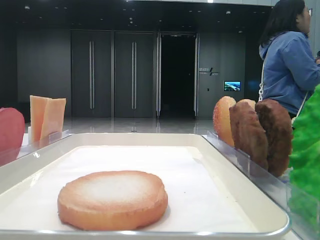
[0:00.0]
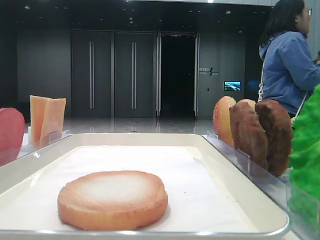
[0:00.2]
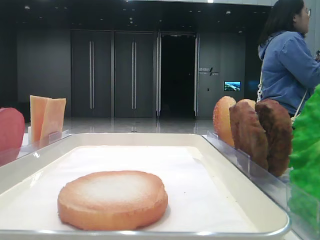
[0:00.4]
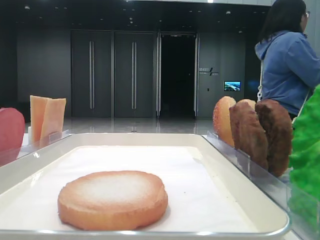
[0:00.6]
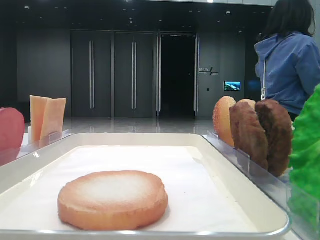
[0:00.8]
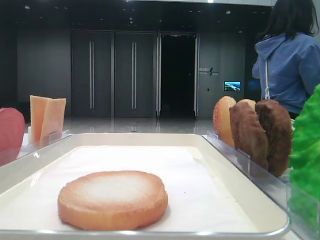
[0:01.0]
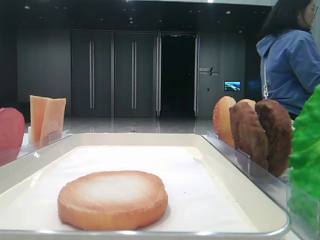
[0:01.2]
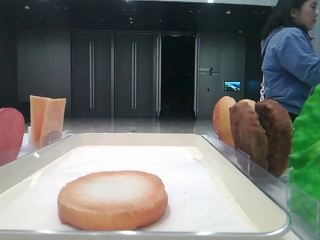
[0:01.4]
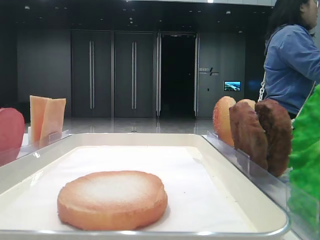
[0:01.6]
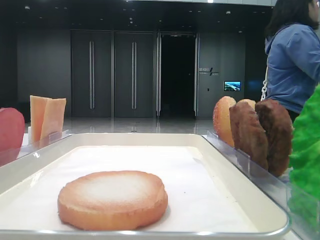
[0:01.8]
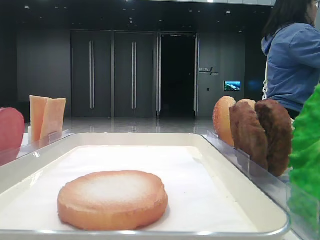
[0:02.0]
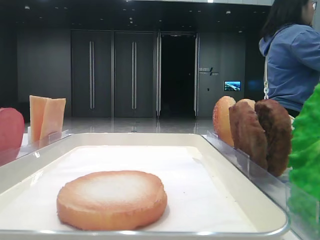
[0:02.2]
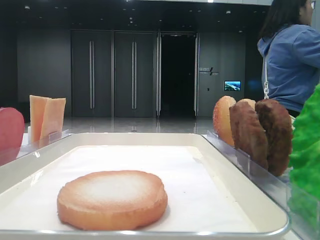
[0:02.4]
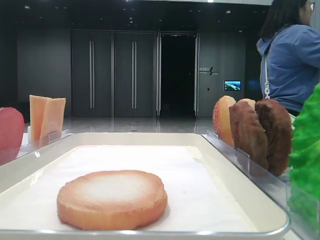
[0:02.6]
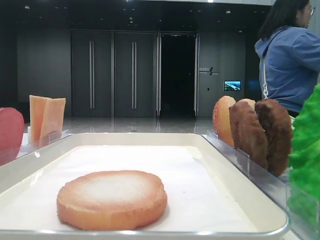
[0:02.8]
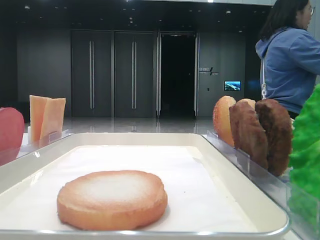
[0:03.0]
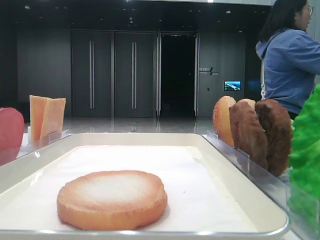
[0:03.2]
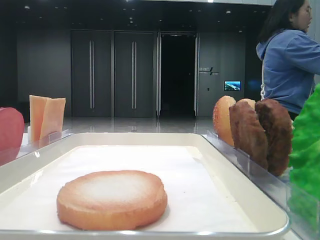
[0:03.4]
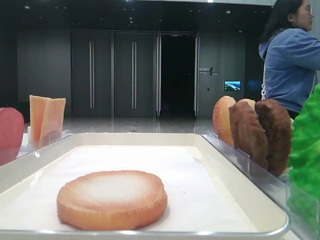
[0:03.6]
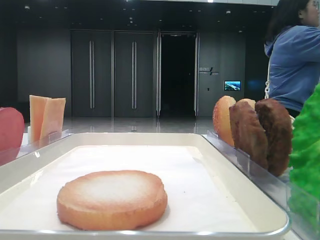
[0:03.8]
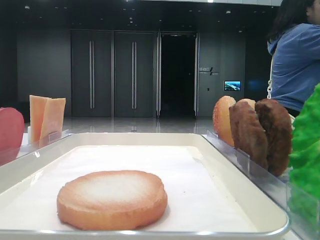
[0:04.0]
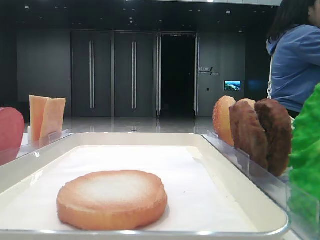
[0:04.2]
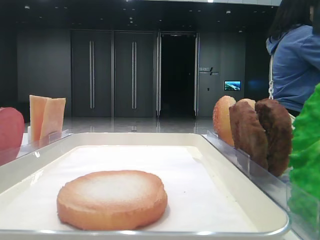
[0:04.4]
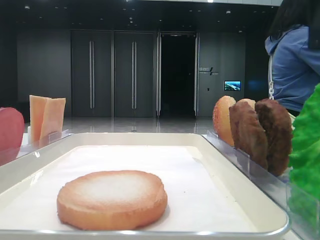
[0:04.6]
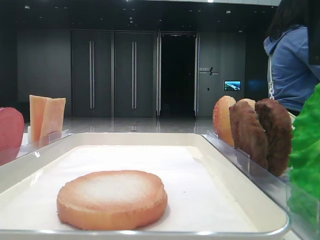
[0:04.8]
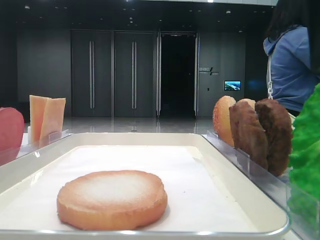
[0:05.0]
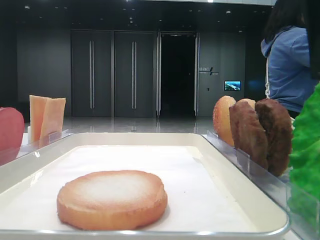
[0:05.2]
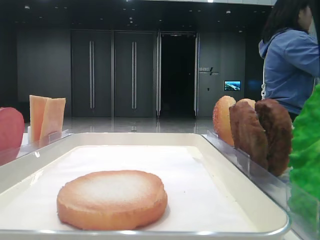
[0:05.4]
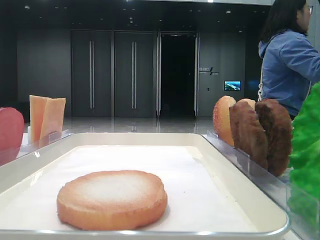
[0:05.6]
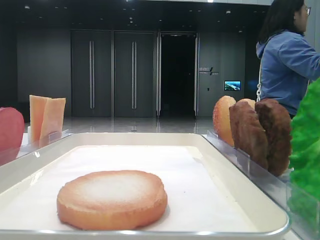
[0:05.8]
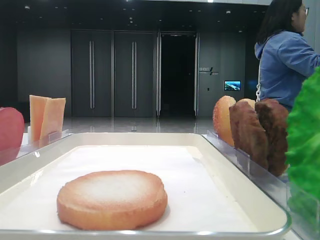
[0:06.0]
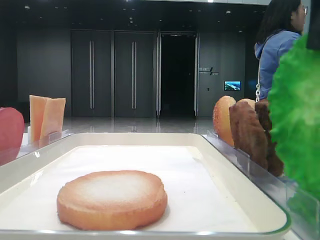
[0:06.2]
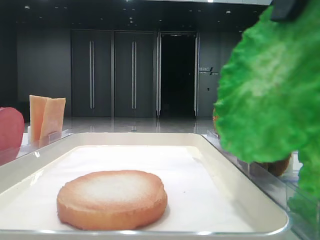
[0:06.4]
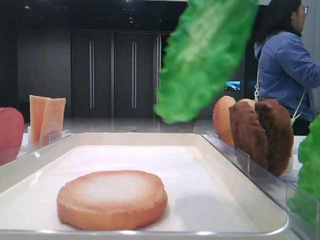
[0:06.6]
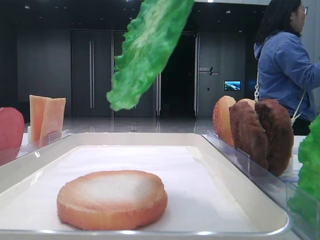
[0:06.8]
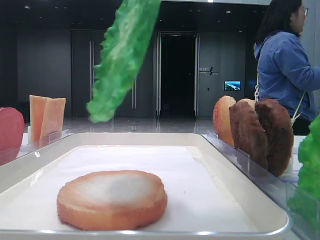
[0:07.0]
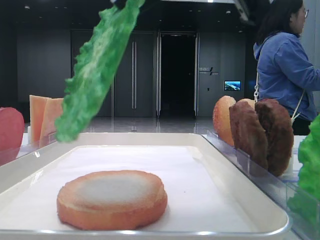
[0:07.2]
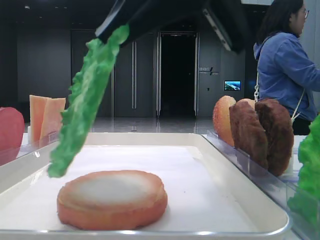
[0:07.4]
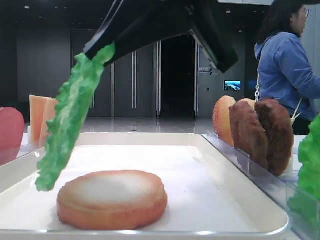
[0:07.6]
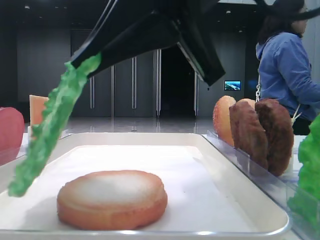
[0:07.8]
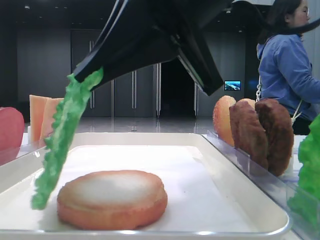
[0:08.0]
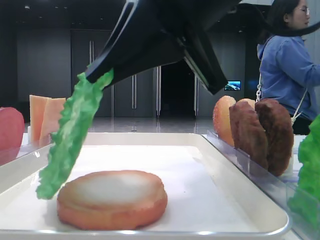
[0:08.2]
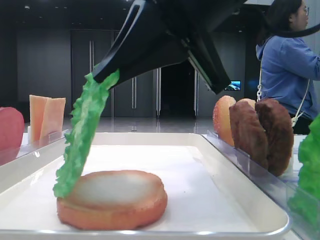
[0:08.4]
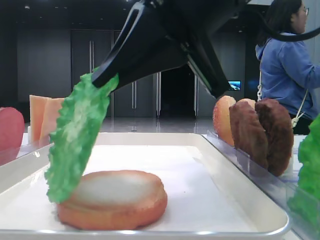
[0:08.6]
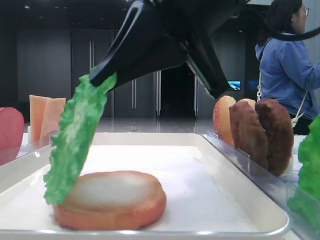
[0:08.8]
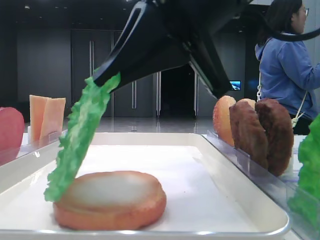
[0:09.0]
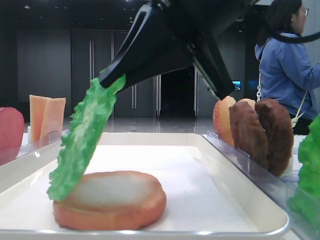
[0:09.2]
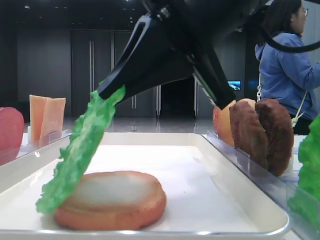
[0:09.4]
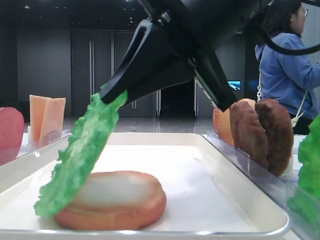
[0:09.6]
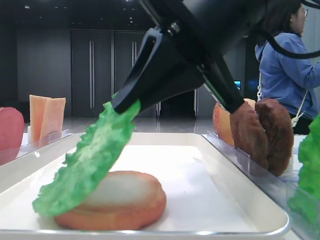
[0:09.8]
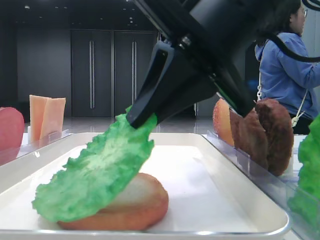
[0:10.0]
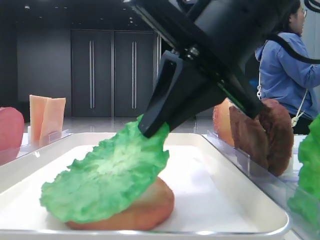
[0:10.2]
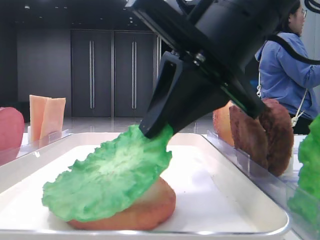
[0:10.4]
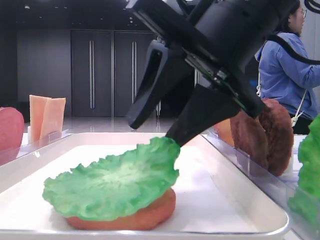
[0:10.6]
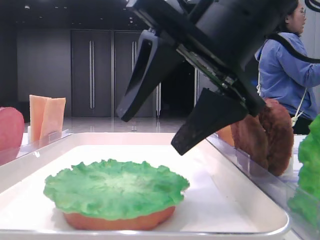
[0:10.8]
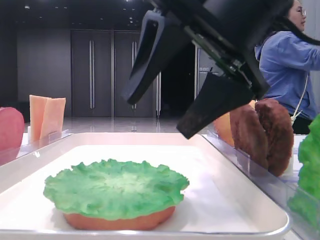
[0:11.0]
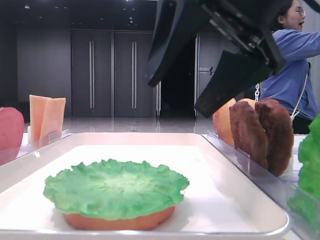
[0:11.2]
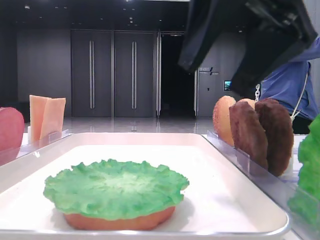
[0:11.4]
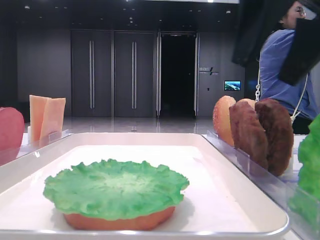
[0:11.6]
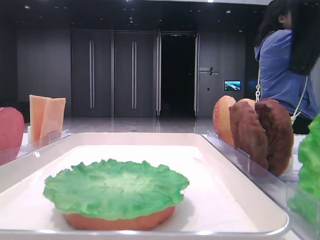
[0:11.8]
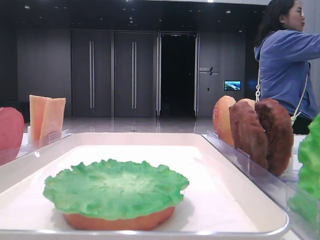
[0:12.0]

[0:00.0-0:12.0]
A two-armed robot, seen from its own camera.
Step, 0.0 to 5.8 s: Grab the lettuce leaf with the right hand.
Step, 6.0 to 10.6 s: Place the lettuce leaf on the bottom bread with the right hand.
1.6 to 3.0 s: The right gripper goes approximately 15 cm forward.
3.0 to 4.4 s: The right gripper is displaced to the left by about 10 cm.
4.4 to 6.0 s: The right gripper closes its fingers.
6.0 to 7.6 s: The right gripper goes some 10 cm to the left.
7.6 to 9.0 s: The grippers move only a little.
10.4 to 12.0 s: The right gripper goes about 15 cm to the right, and opens.

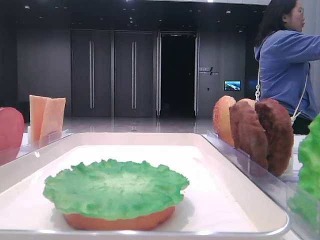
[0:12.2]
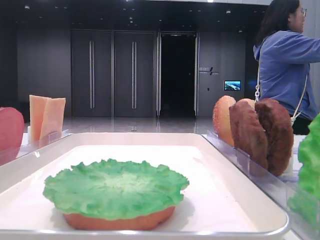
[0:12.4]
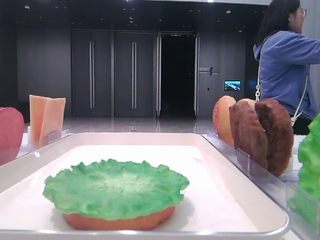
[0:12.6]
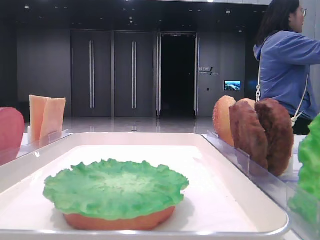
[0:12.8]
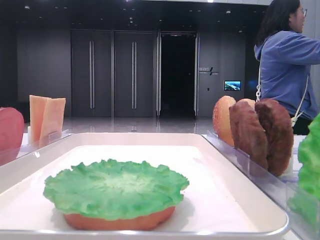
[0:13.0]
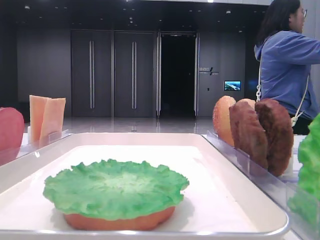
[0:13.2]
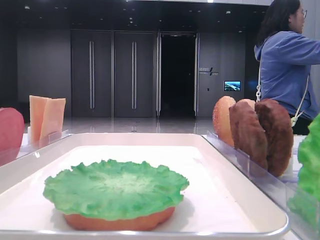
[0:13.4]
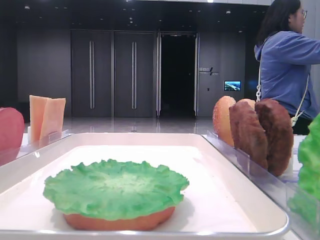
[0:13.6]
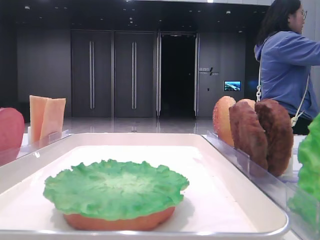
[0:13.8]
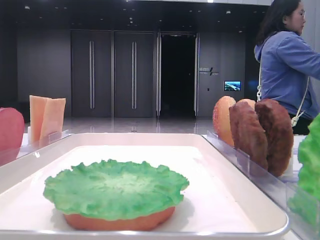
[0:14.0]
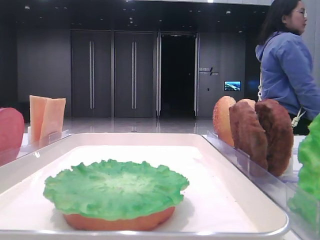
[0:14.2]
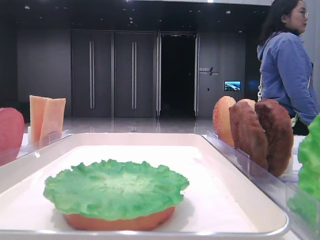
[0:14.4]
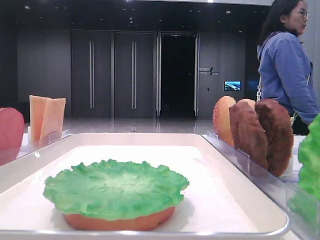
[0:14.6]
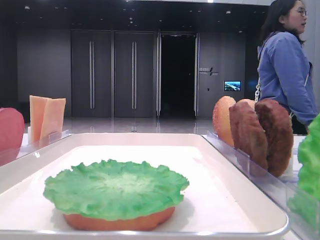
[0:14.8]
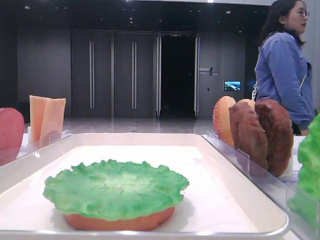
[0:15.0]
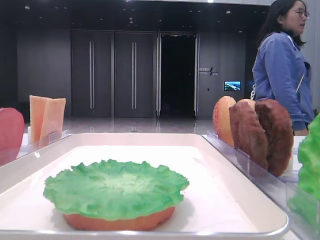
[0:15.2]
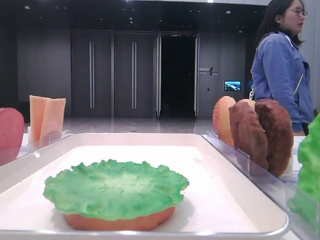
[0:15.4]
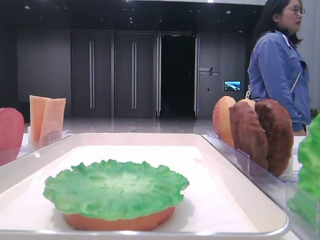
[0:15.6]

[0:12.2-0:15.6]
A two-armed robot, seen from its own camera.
12.2 to 13.8 s: The right gripper heads backward, covering roughly 20 cm.
13.8 to 15.6 s: The right gripper is displaced backward by about 5 cm.

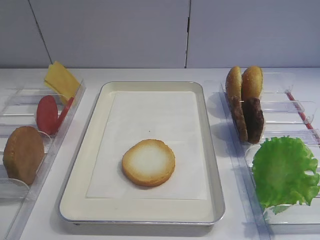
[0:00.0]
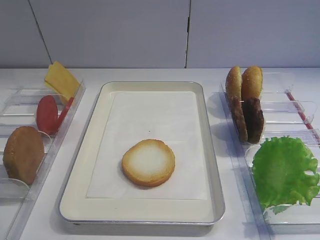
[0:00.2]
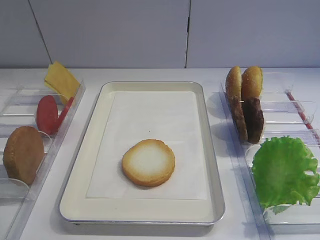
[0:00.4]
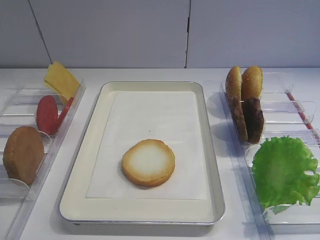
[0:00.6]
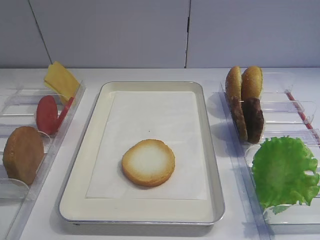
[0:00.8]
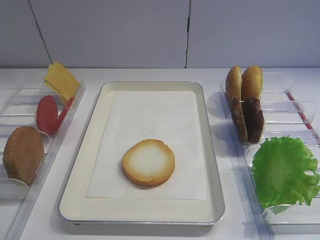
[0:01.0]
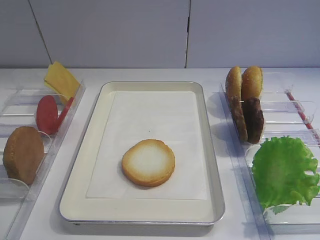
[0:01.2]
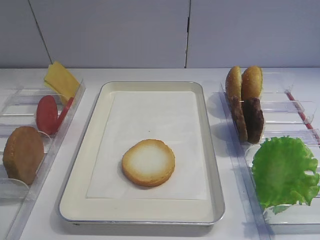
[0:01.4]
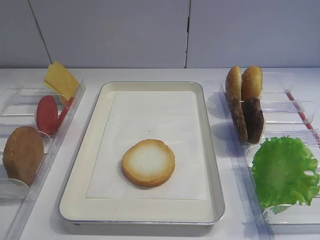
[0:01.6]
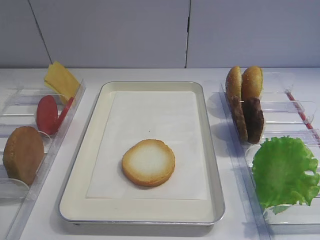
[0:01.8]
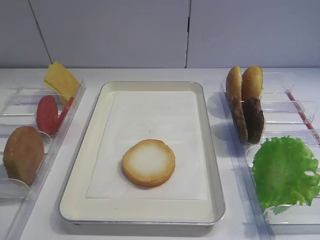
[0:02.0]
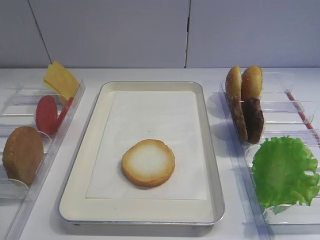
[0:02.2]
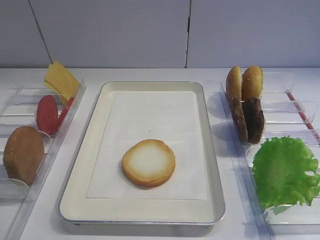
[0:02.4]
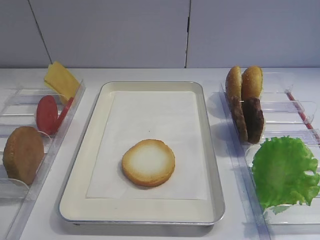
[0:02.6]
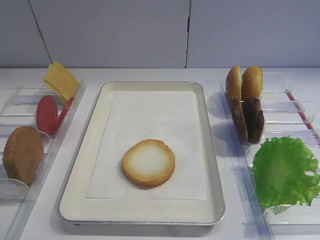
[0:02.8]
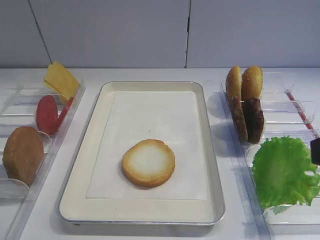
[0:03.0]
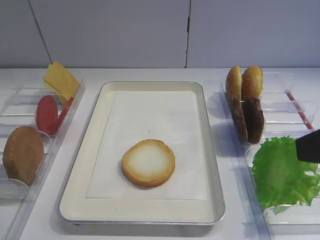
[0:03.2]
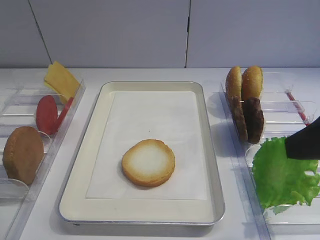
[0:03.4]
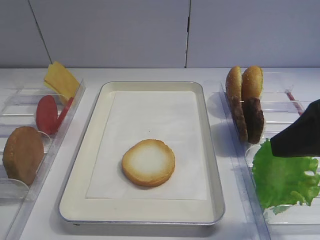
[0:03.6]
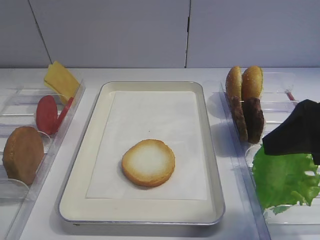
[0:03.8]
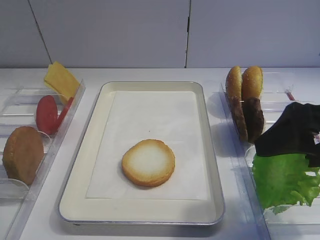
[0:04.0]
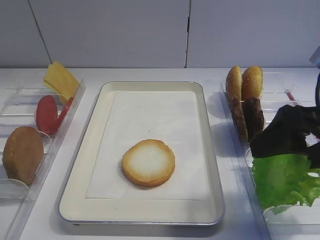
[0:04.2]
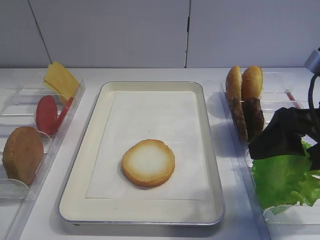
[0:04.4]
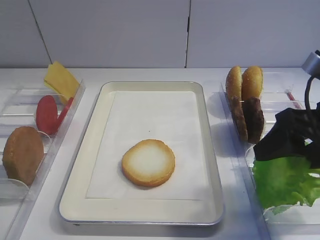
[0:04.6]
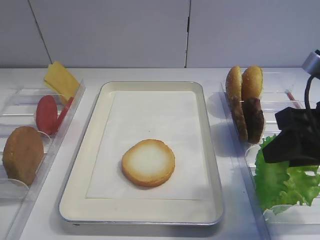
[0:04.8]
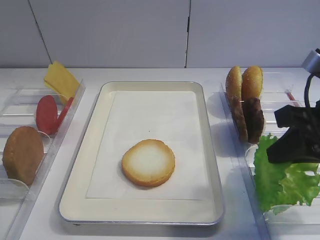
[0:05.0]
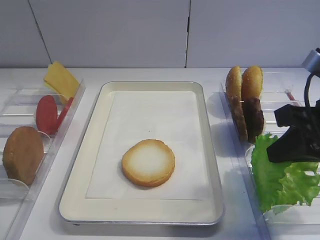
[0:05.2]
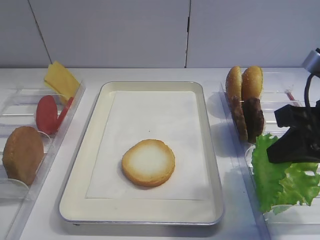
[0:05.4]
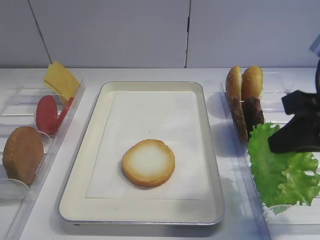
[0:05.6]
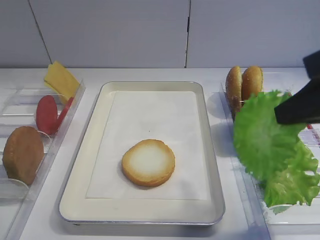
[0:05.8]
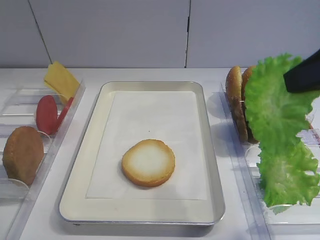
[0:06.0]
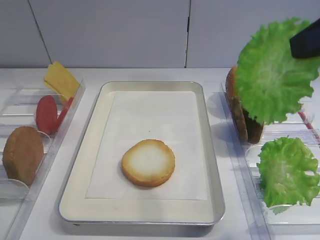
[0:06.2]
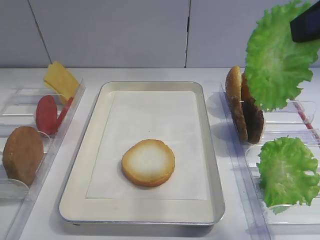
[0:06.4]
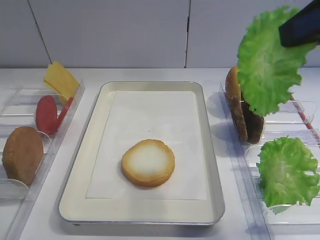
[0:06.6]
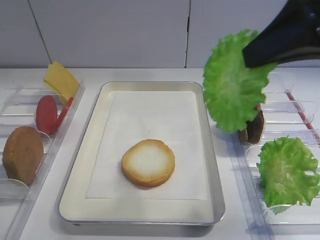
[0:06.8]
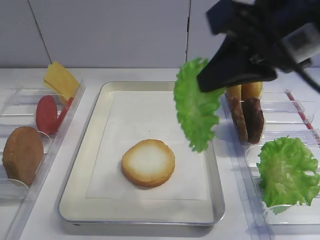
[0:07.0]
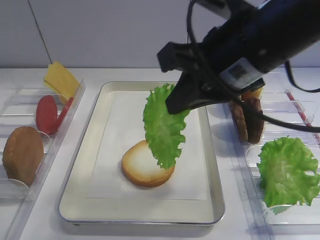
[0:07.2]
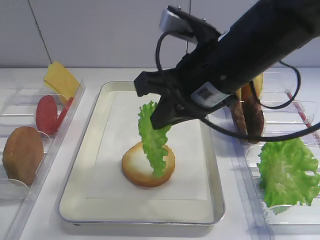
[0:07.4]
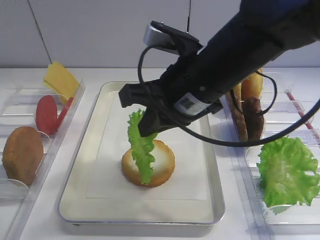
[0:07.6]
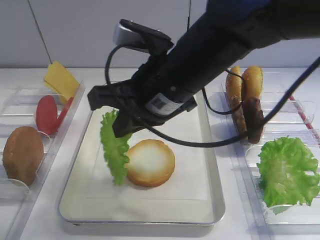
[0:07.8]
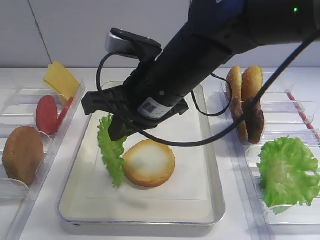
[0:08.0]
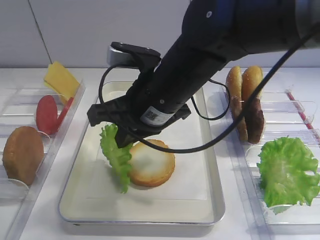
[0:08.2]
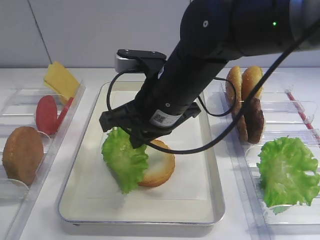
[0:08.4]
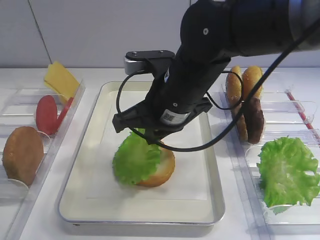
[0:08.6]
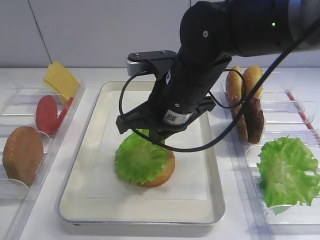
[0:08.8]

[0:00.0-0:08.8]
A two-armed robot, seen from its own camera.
Step, 0.0 to 5.4 s: Pick up the lettuce leaf with the right gripper.
3.0 to 4.4 s: The right gripper is displaced forward and downward by approximately 10 cm.
4.4 to 5.8 s: The right gripper moves upward, about 10 cm, and closes.
5.8 to 7.4 s: The right gripper is displaced to the left, forward and downward by some 20 cm.
7.4 to 8.8 s: The right gripper ends up some 5 cm from where it was.
